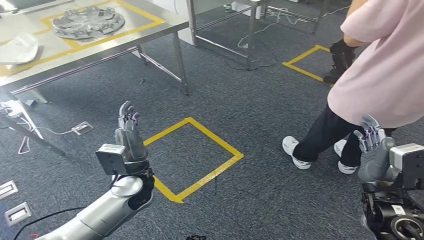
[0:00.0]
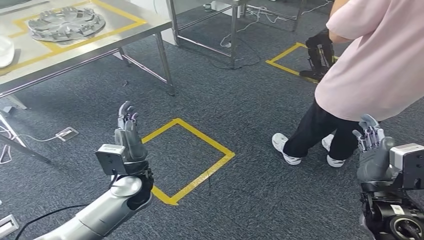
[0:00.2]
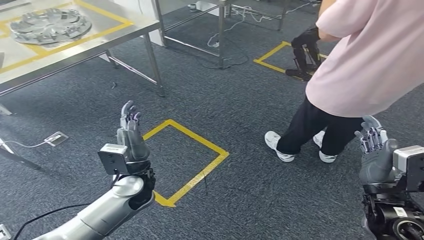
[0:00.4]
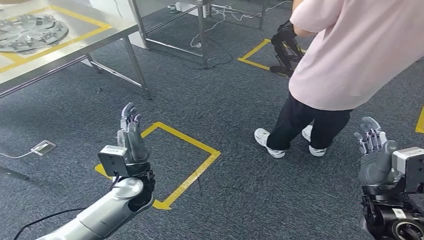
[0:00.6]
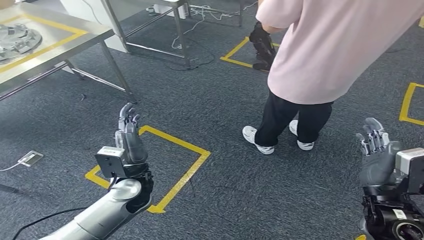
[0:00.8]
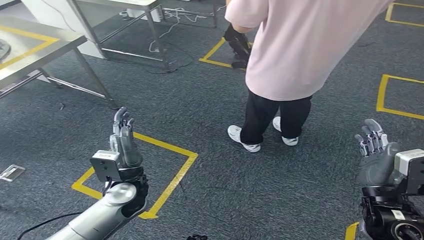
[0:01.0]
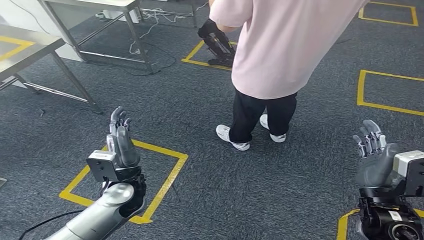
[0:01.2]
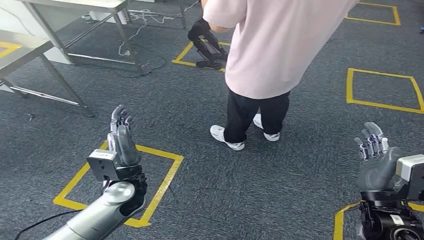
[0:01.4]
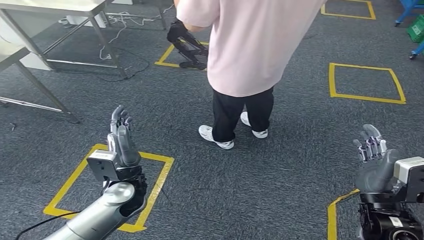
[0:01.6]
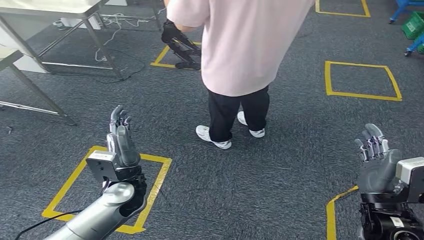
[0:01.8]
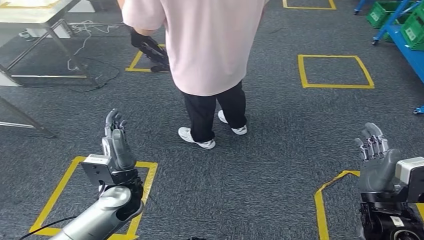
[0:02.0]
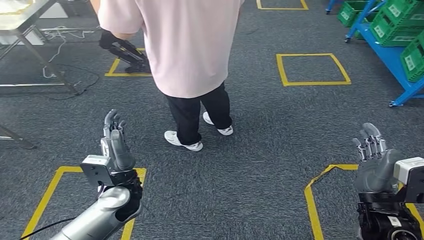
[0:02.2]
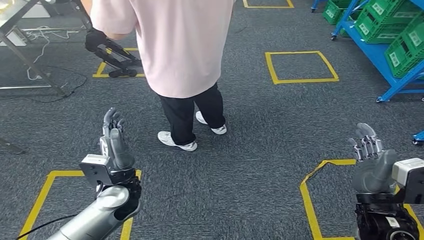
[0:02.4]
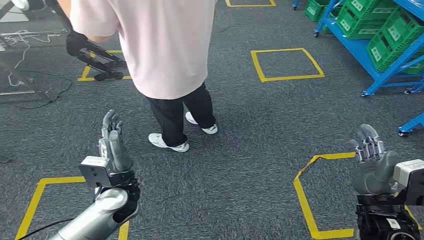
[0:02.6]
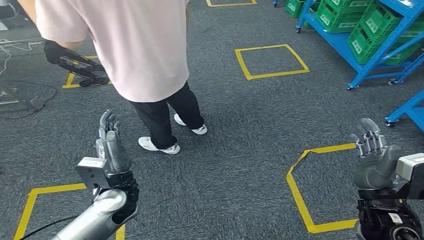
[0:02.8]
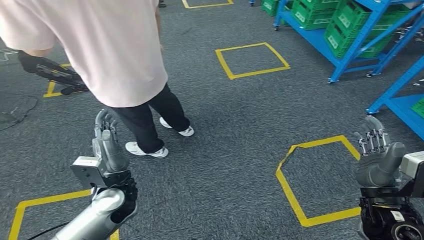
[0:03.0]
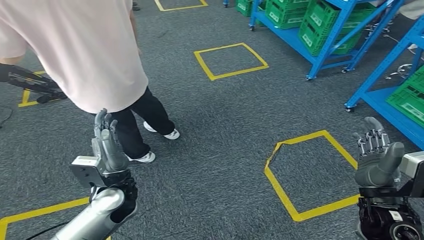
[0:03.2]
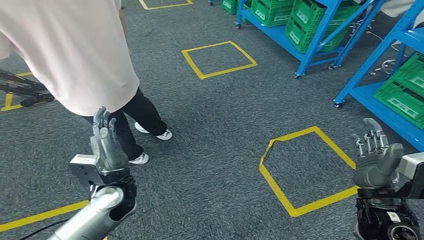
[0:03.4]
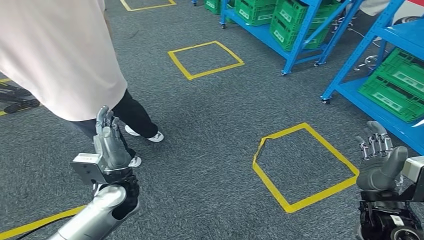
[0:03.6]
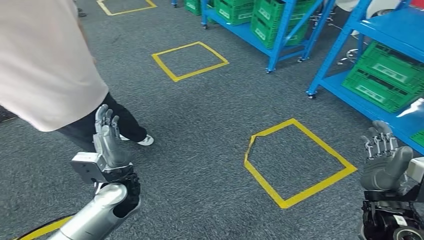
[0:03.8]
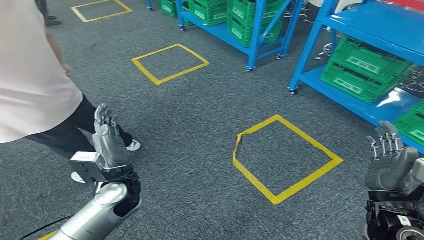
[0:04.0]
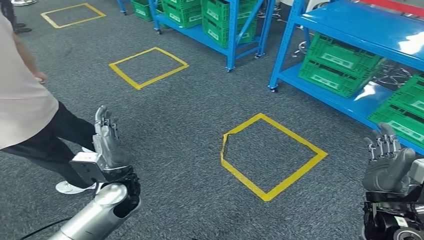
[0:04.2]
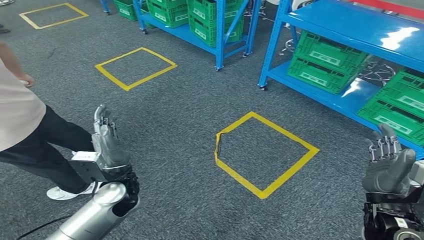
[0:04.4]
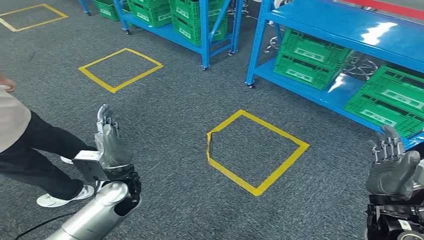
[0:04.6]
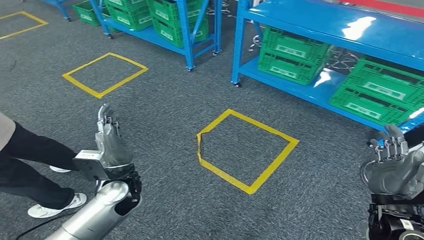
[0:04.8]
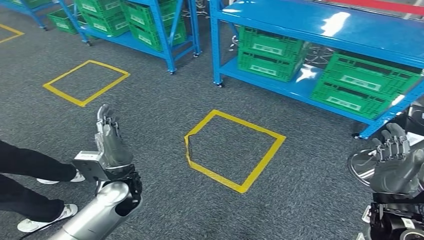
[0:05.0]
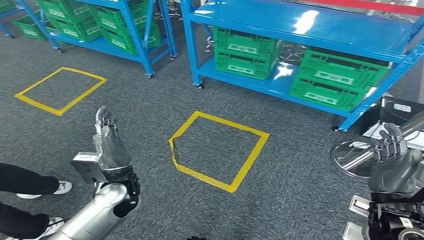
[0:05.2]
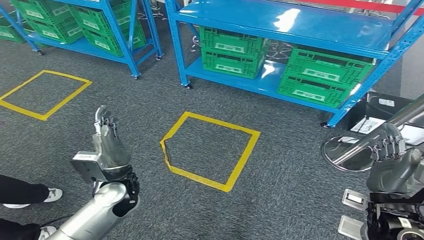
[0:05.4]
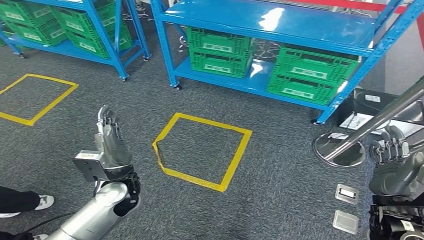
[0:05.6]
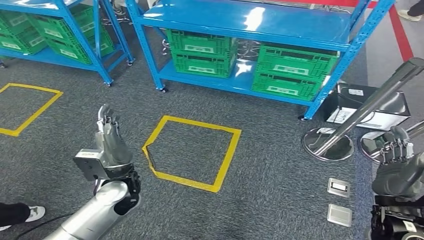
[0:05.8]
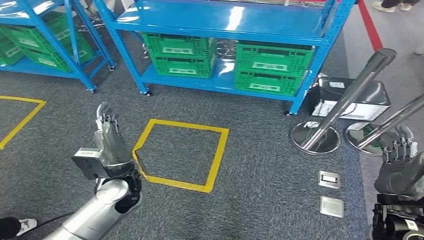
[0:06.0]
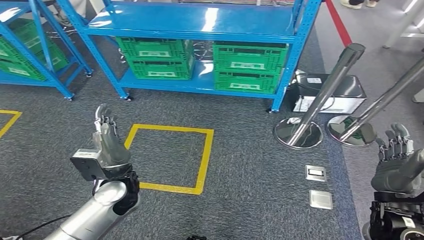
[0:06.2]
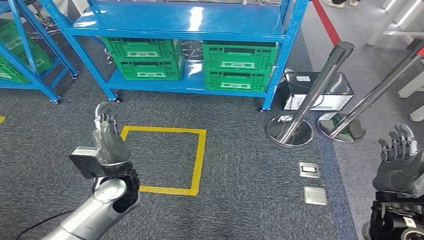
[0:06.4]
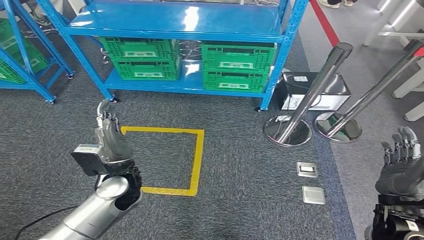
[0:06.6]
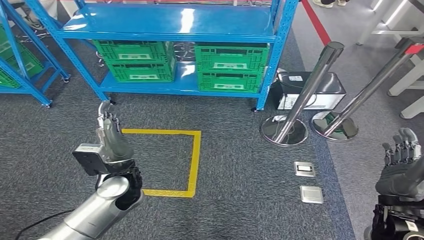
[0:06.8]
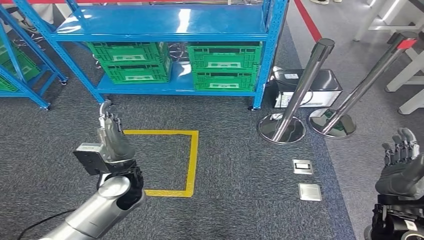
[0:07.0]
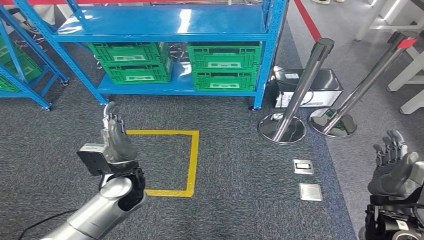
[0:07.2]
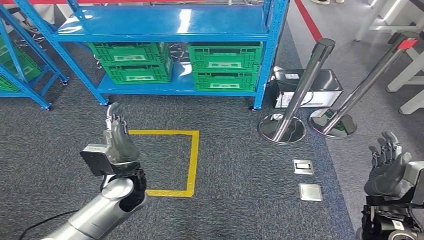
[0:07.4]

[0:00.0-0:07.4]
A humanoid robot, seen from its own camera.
Step, 0:00.0 to 0:07.4: Move to the initial position of the workbench.
